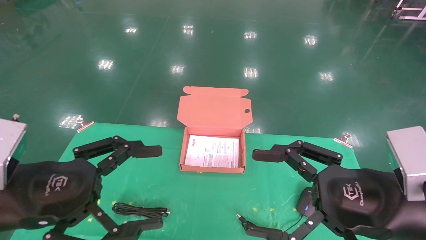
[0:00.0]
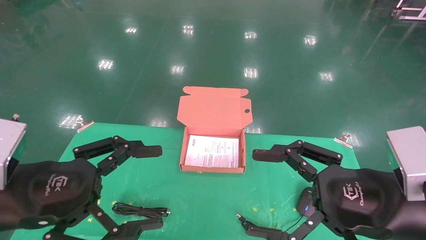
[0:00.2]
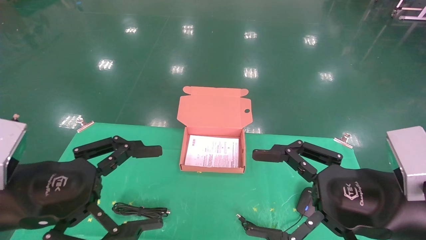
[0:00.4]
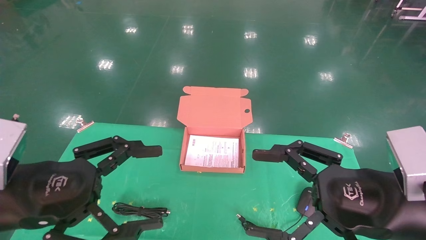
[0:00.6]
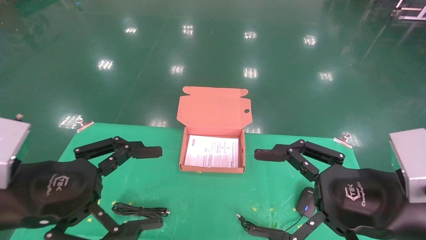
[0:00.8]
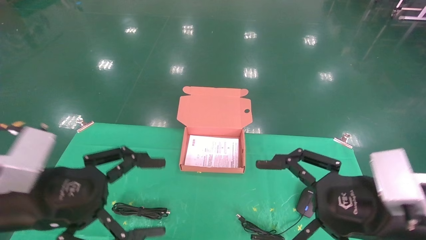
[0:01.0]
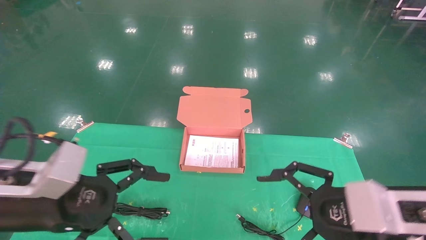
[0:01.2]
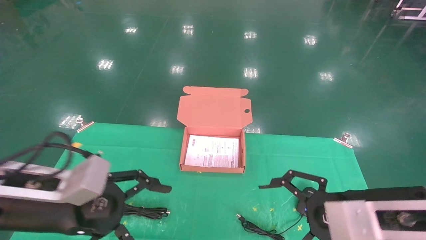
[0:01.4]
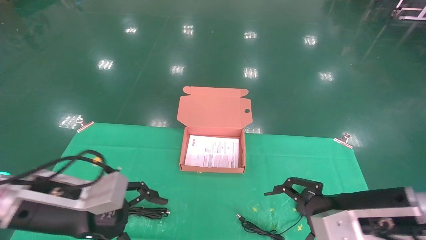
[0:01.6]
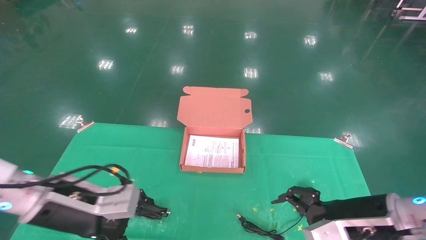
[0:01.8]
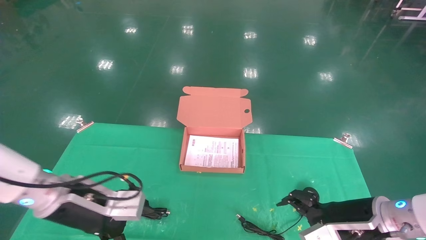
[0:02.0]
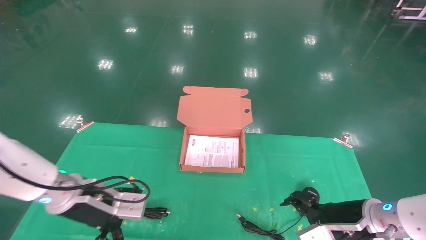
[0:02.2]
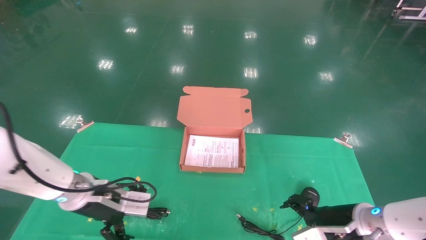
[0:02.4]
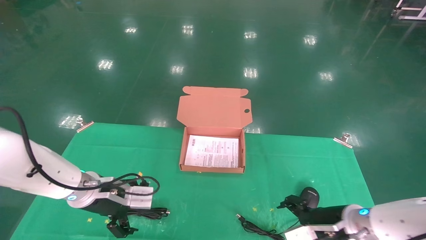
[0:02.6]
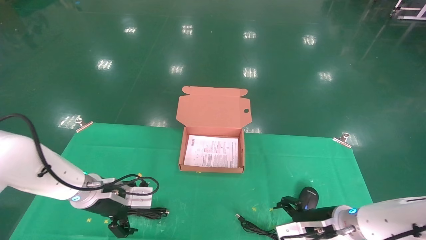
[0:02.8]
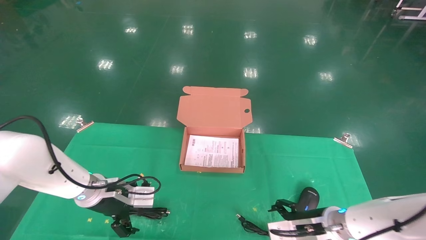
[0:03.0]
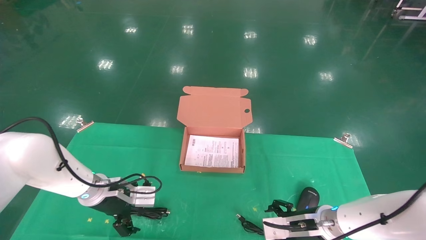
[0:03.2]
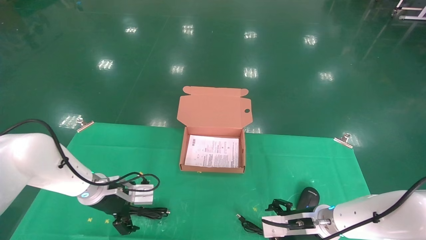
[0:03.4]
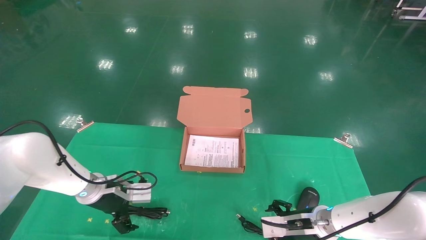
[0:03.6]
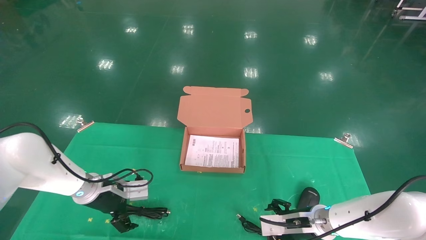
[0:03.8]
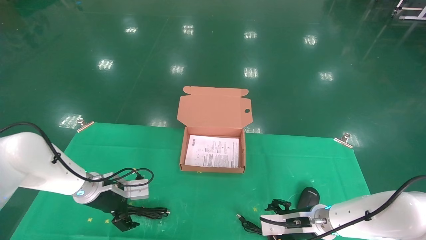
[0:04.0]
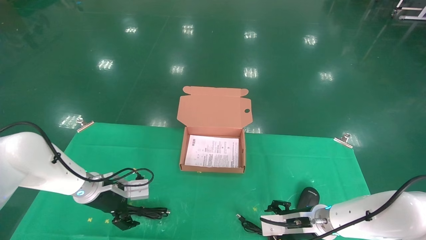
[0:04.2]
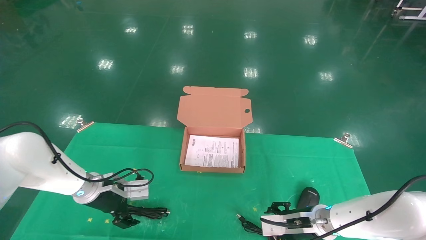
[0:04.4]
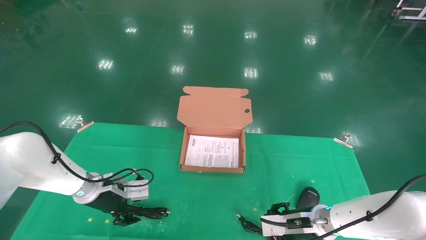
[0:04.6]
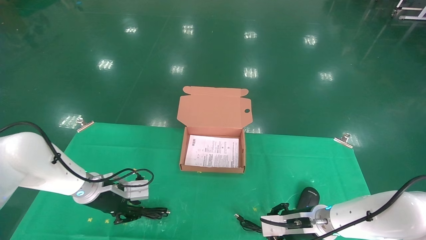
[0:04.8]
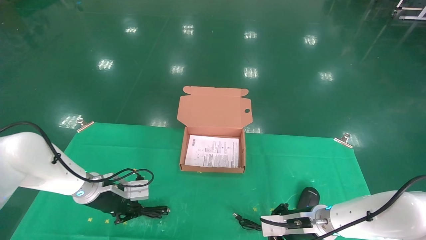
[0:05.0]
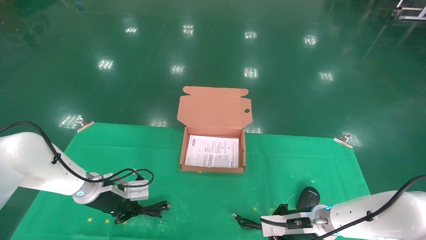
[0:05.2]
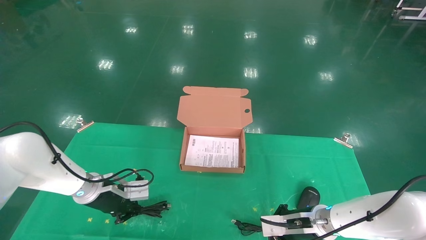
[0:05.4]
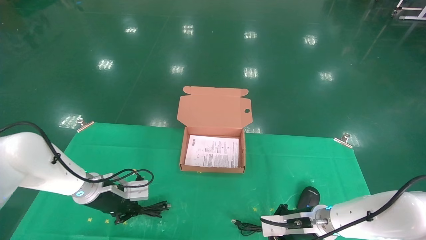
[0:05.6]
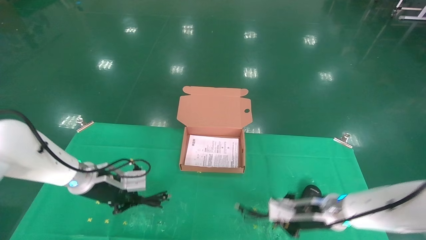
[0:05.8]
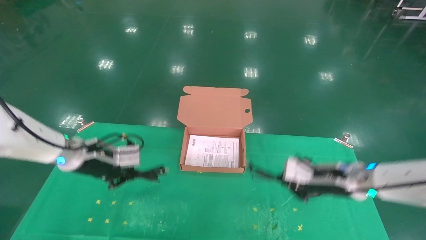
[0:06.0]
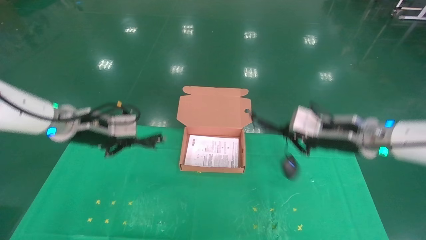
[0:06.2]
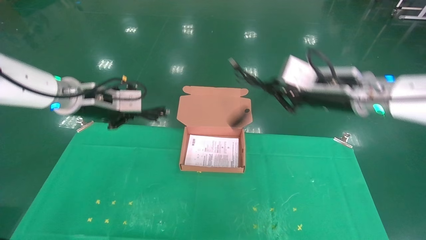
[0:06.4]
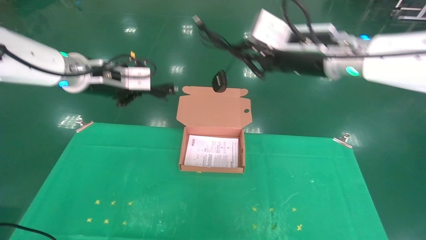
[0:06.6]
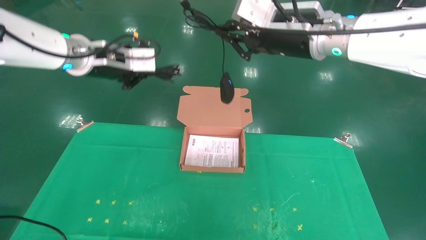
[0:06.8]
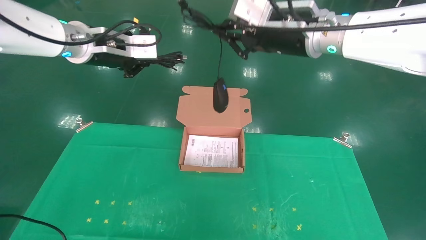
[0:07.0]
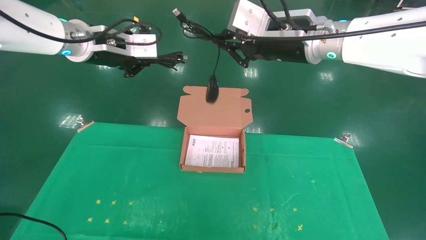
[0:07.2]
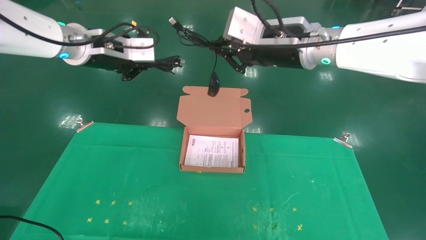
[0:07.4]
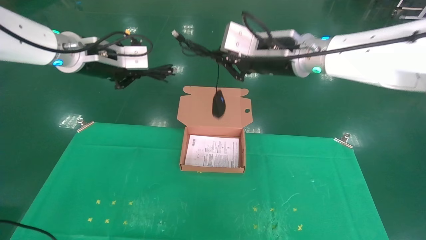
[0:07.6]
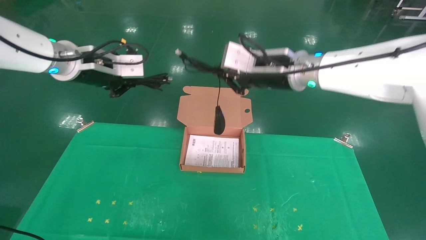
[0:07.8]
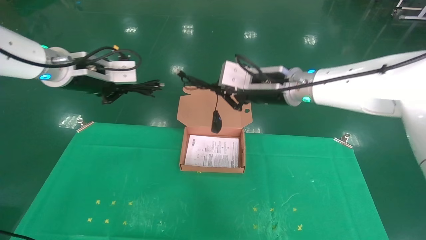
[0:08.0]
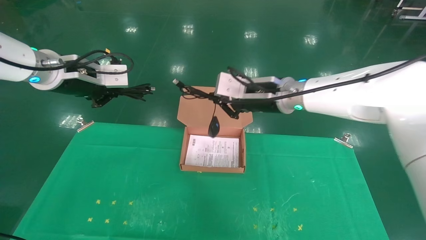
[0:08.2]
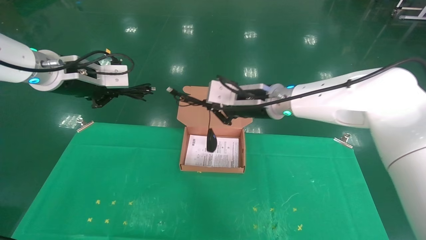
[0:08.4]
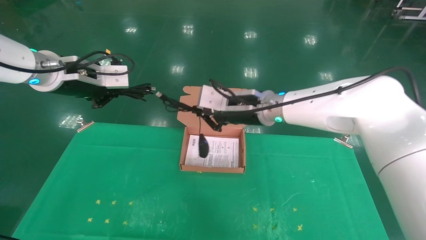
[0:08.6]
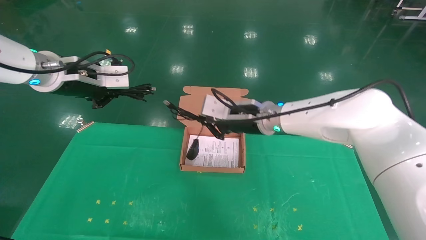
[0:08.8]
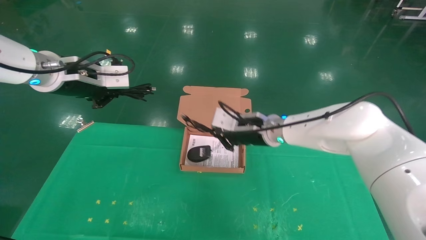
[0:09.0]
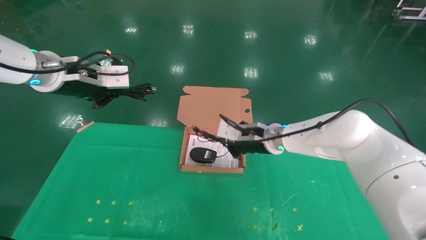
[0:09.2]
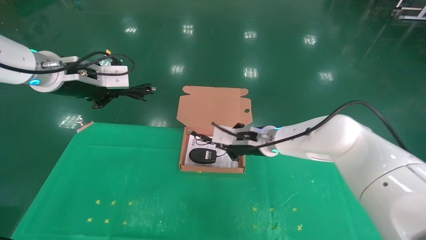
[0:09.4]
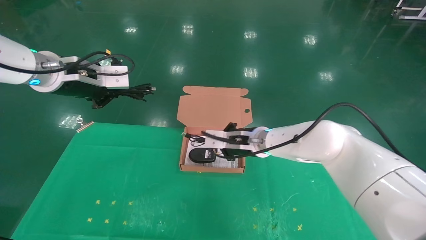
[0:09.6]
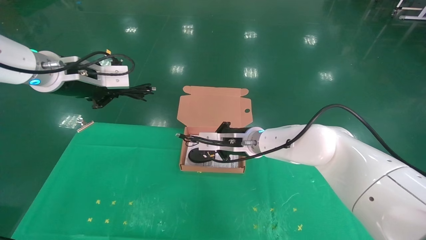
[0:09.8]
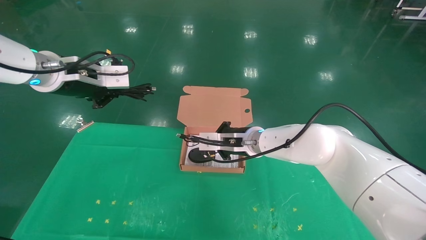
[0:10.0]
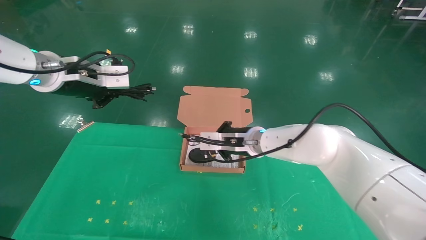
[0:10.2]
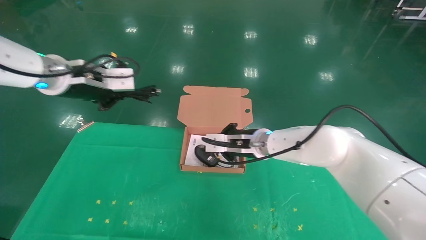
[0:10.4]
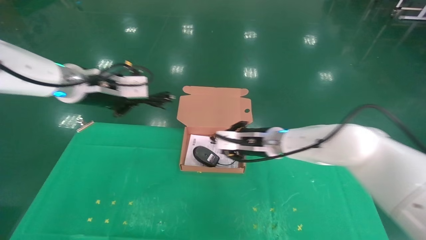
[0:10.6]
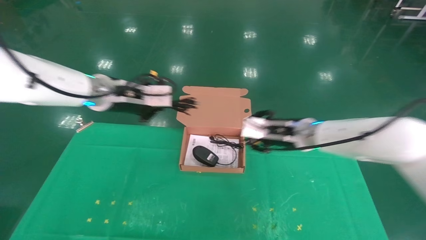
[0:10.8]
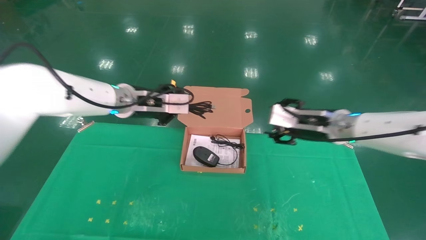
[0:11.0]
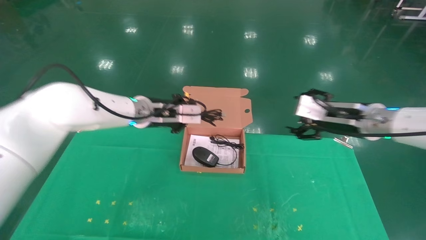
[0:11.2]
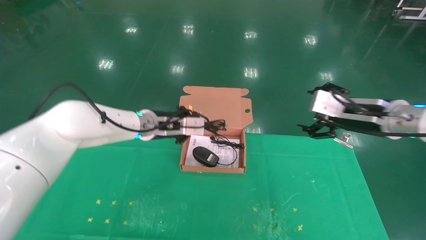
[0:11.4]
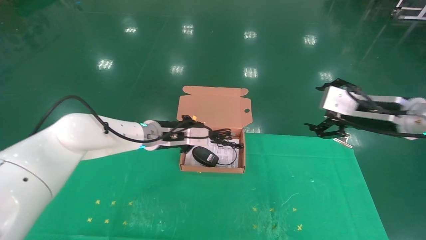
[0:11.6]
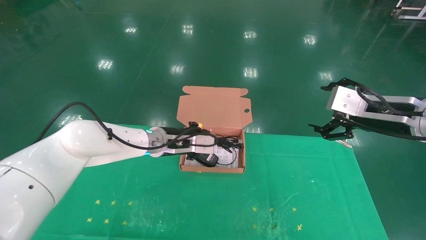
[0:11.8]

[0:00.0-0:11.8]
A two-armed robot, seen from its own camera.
Task of the whole recording: grasp data cable left put into box grasp mouse right put into box.
Step, 0:01.0 to 0:06.0: Grab and pick up both the mouse and power cord from the accessory packaging area at the same time.
0:00.0 to 0:01.4: The right gripper moves some 5 cm; the left gripper is displaced forward by about 5 cm.
0:01.4 to 0:03.0: The right gripper heads downward and forward, covering roughly 20 cm, while the left gripper moves forward and downward, some 20 cm.
0:03.0 to 0:04.4: The grippers make only small movements.
0:04.4 to 0:06.0: The two grippers go about 10 cm upward. The left gripper closes up, while the right gripper closes its fingers.
0:06.0 to 0:07.4: The right gripper moves upward and to the left, roughly 30 cm; the left gripper moves upward, roughly 25 cm.
0:07.4 to 0:08.8: The right gripper heads downward and forward, covering approximately 15 cm. The left gripper moves roughly 5 cm.
0:08.8 to 0:10.4: The right gripper moves downward, some 5 cm.
0:10.4 to 0:11.8: The left gripper shifts roughly 25 cm downward, to the right and forward, while the right gripper heads to the right, backward and upward, covering some 25 cm, and opens its fingers.

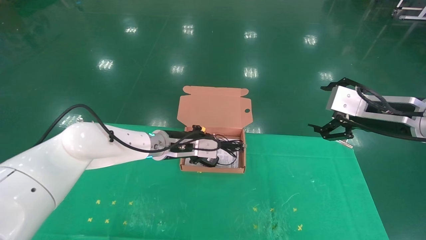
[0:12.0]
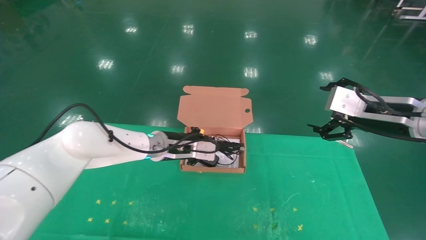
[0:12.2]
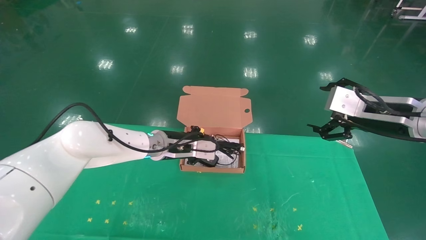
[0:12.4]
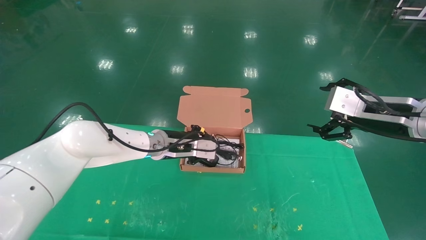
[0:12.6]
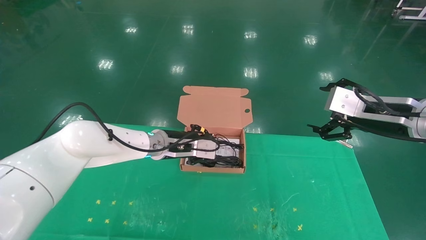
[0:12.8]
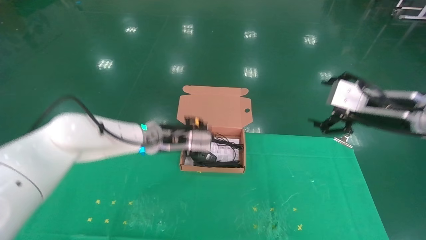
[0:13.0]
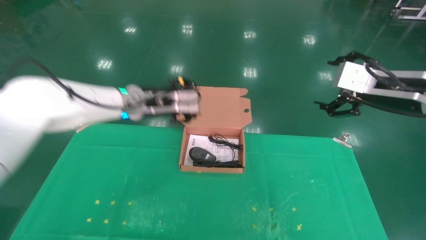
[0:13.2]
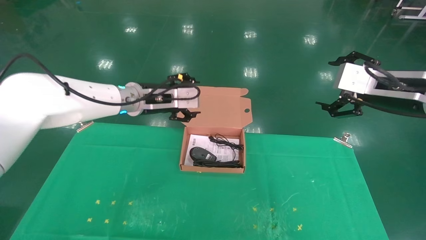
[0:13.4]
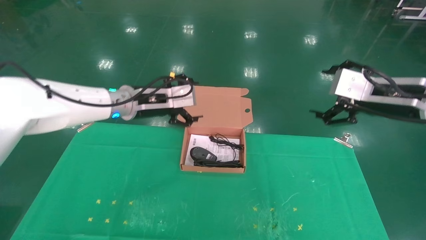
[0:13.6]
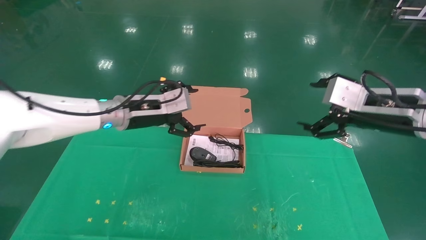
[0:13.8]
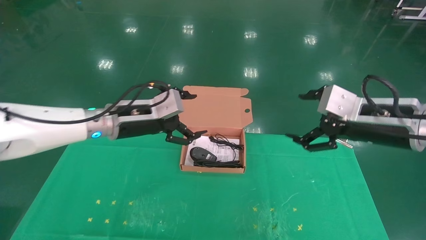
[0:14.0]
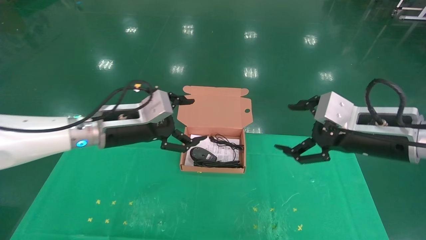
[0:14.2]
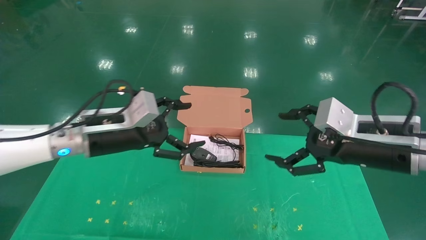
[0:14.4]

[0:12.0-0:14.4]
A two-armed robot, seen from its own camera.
Task of the whole recording: grasp data cable left put into box grasp mouse right put into box.
0:12.0 to 0:13.2: The left gripper travels upward by roughly 10 cm, and opens up.
0:13.2 to 0:14.4: The right gripper goes approximately 10 cm downward and to the left; the left gripper travels backward and to the left by about 15 cm, and opens up.
